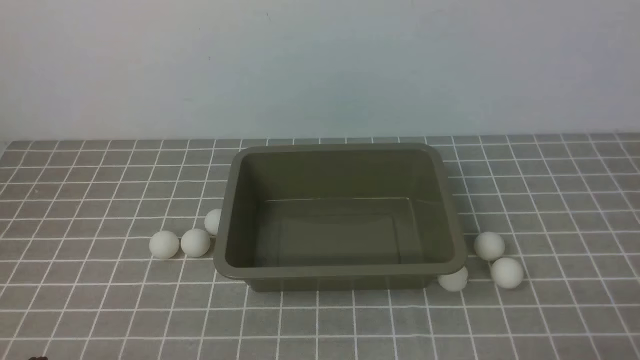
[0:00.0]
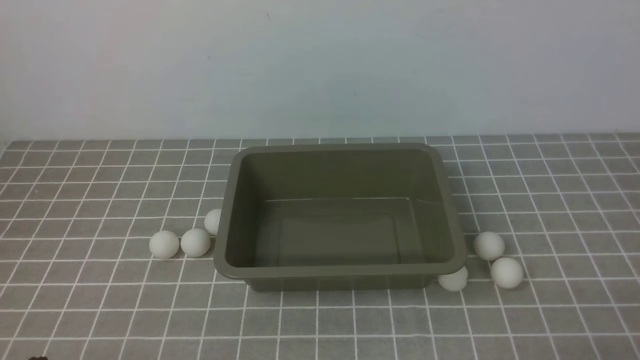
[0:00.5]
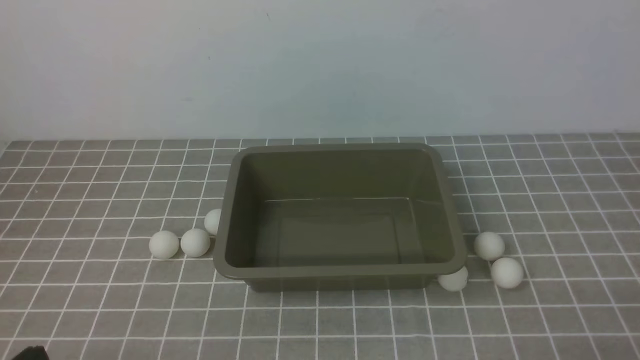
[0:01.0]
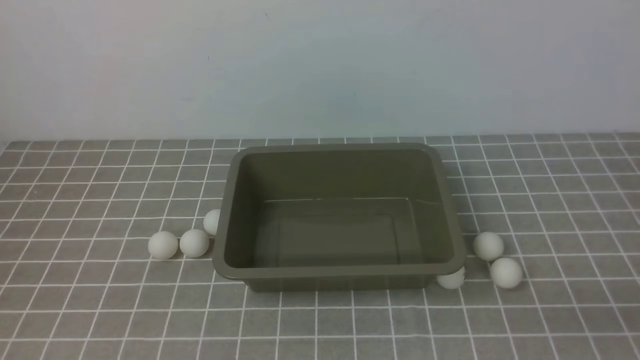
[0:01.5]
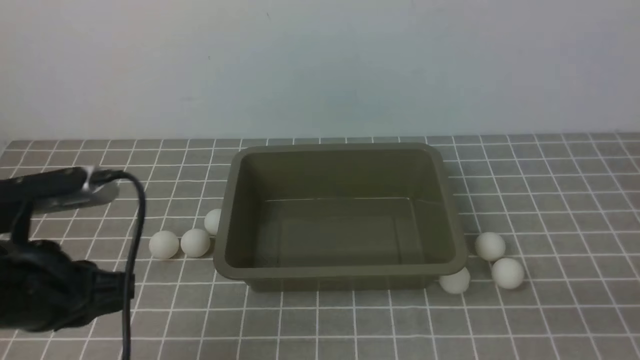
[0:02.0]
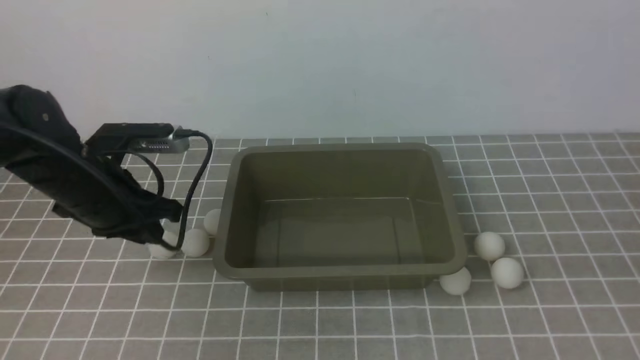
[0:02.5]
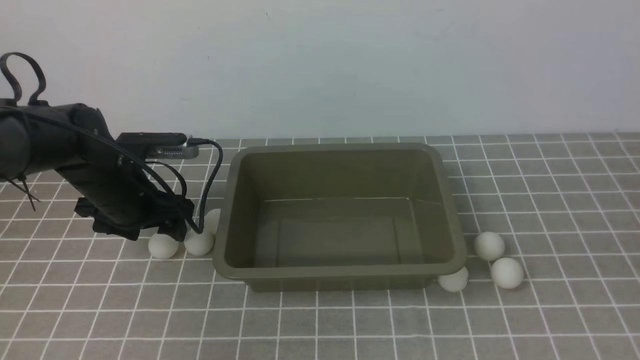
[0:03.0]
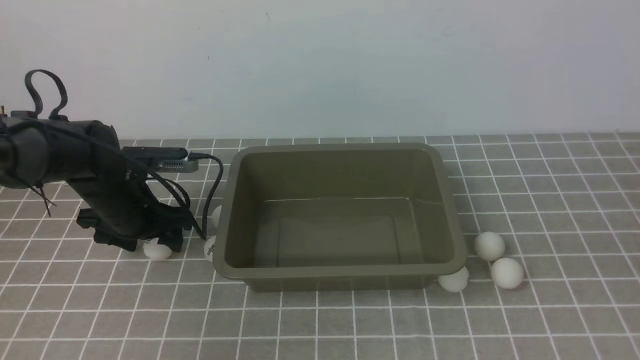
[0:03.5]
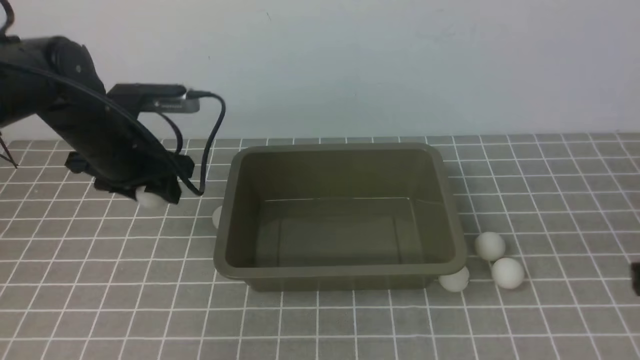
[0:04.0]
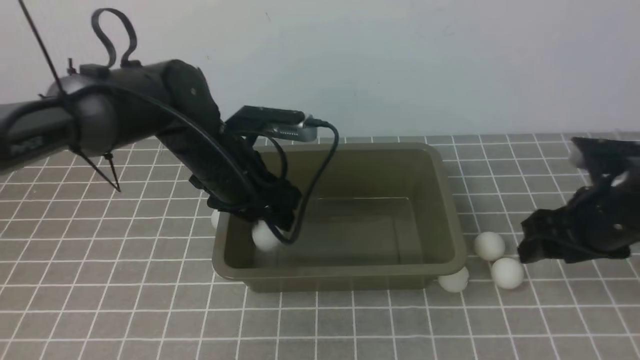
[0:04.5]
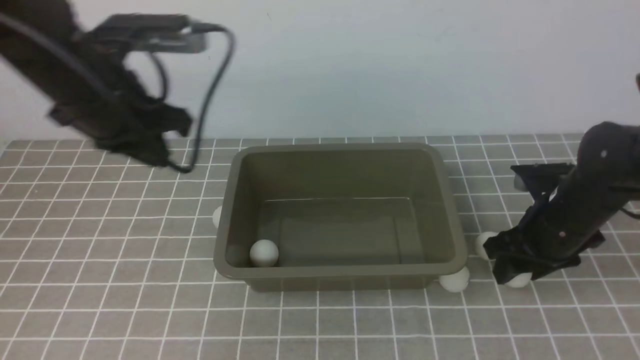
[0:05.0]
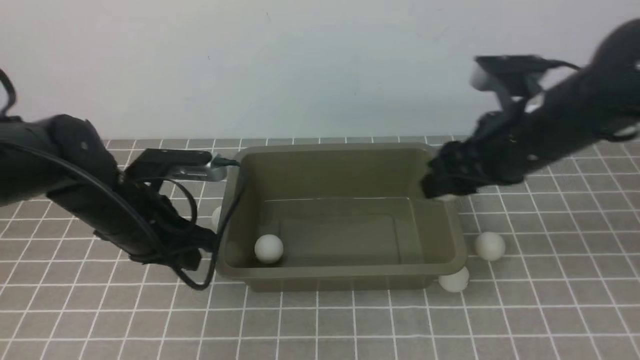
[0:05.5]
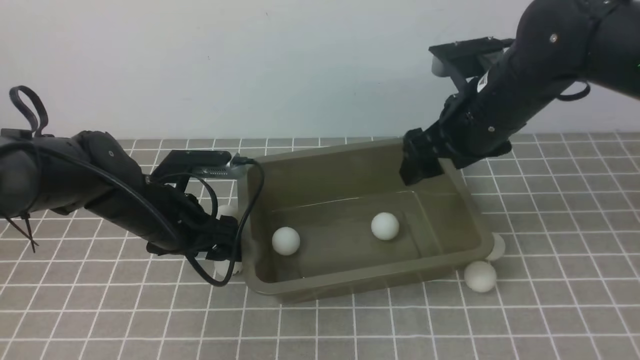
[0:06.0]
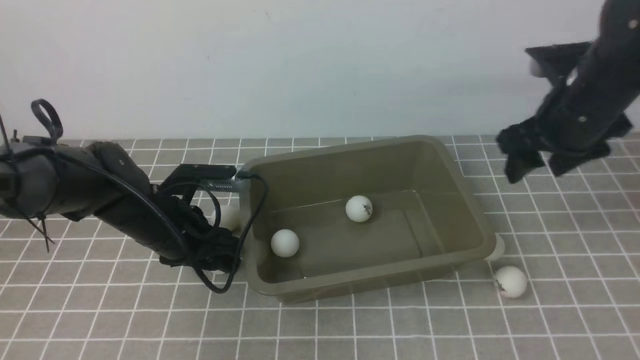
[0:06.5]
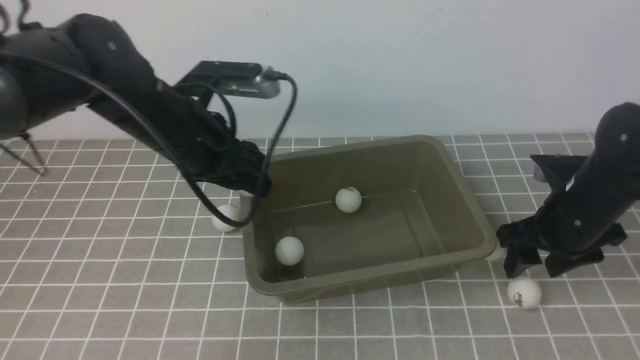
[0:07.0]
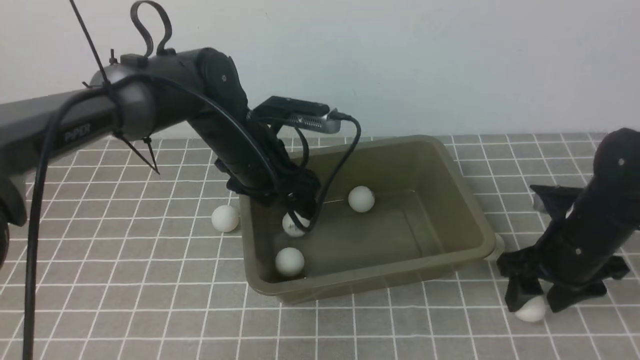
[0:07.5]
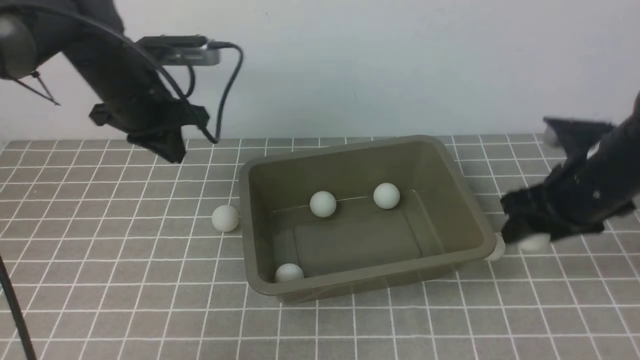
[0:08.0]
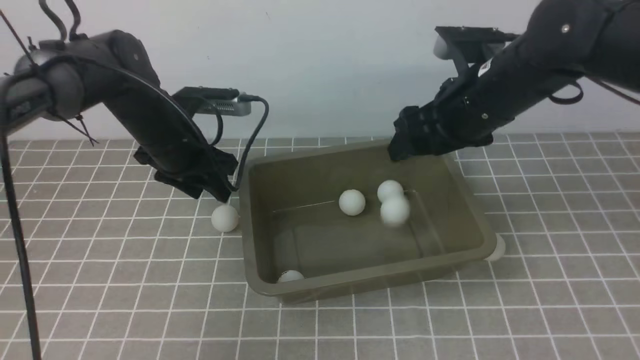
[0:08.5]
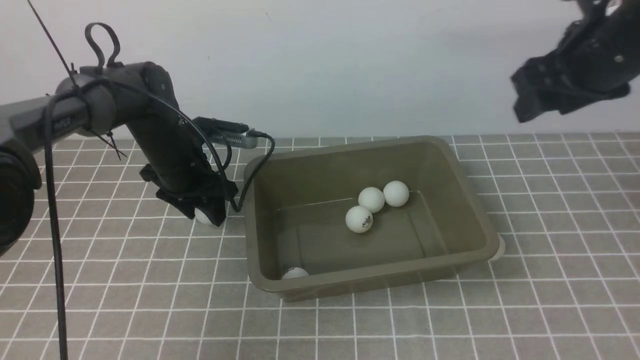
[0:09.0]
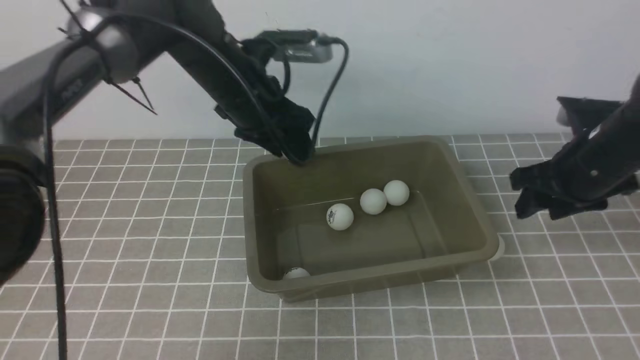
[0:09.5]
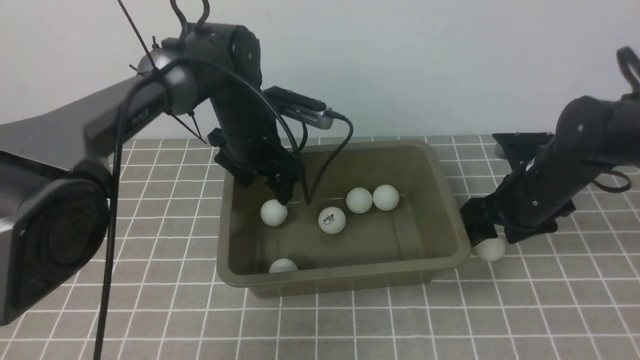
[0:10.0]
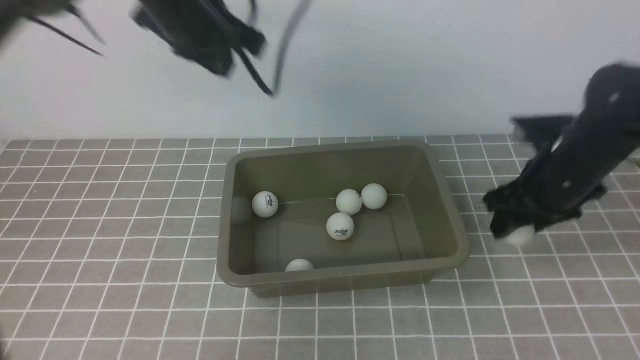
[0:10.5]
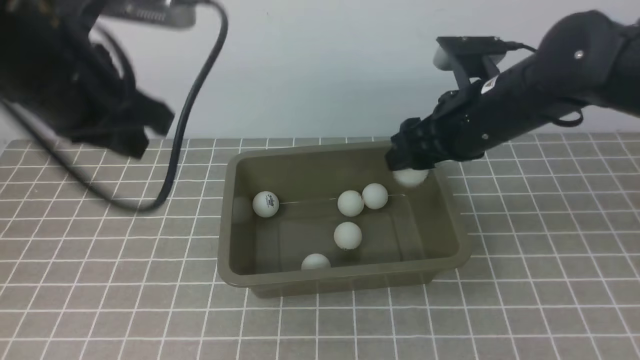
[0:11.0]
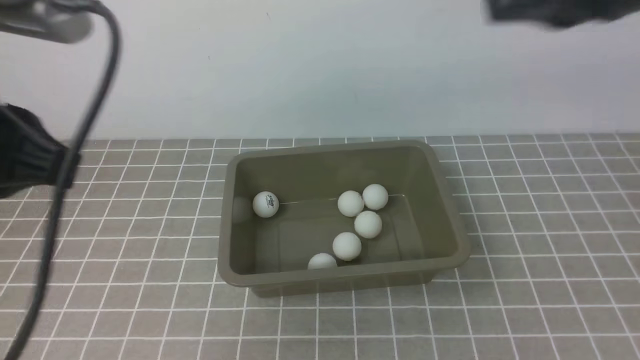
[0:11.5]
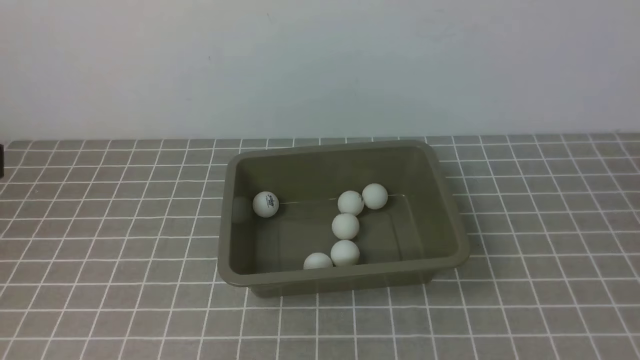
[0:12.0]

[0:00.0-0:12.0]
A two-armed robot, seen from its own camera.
Step, 0:00.0 to 0:03.5: use the left arm to clamp the table tennis ball closest to it.
Step, 0:06.0 to 0:06.5: use the left arm to clamp the table tennis ball closest to it.
Step, 0:07.0 to 0:07.5: use the left arm to put the table tennis ball into the box.
0:00.0 to 0:02.0: The left gripper heads forward and upward, covering roughly 15 cm.
0:02.0 to 0:04.0: The right gripper shifts approximately 15 cm forward and upward; the left gripper goes approximately 20 cm forward, and opens.
0:04.0 to 0:06.0: The left gripper heads downward, covering about 5 cm, and opens. Meanwhile the right gripper heads forward and to the left, covering some 25 cm, and opens.
0:06.0 to 0:08.0: The right gripper moves to the right, about 10 cm, and closes its fingers; the left gripper shifts about 15 cm upward and forward, travels to the right and back again, roughly 10 cm each way, and closes.
0:08.0 to 0:10.0: The left gripper is displaced to the right by approximately 10 cm, and opens its fingers, while the right gripper goes about 5 cm downward.
0:10.0 to 0:12.0: The grippers both shift backward and upward by about 40 cm. The left gripper closes up; the right gripper closes its fingers.
